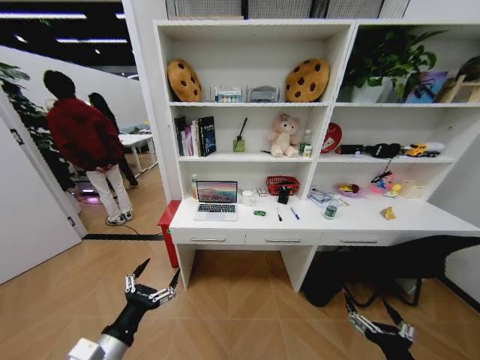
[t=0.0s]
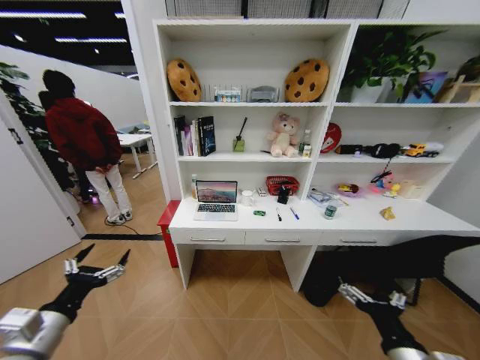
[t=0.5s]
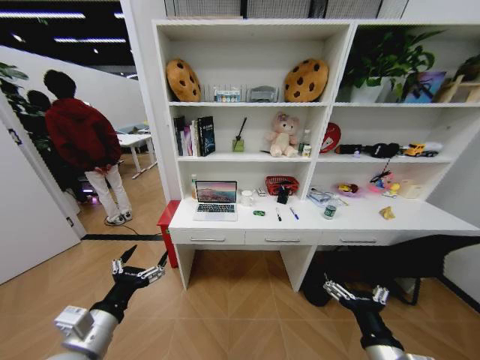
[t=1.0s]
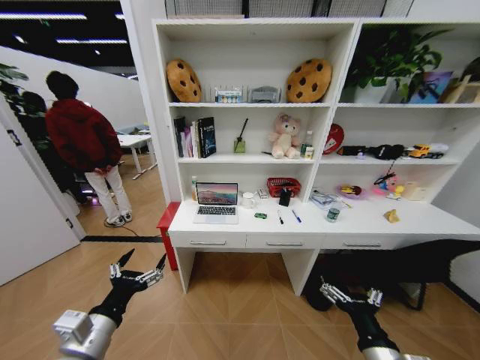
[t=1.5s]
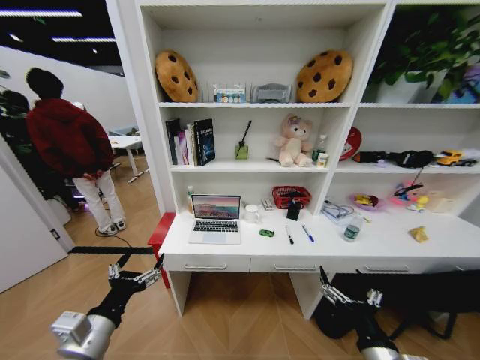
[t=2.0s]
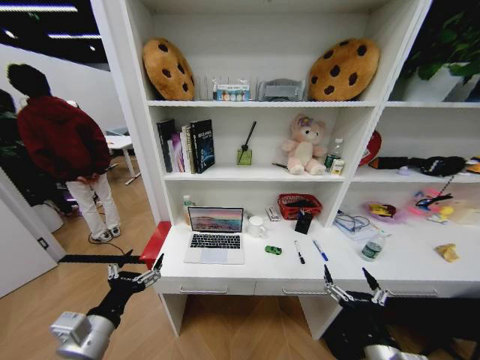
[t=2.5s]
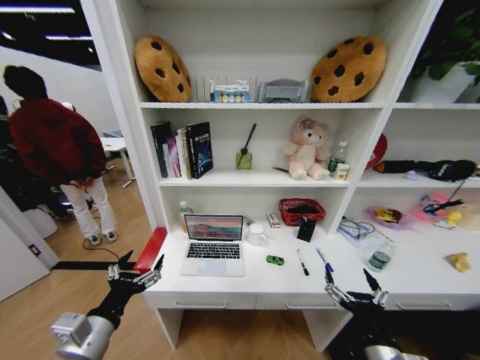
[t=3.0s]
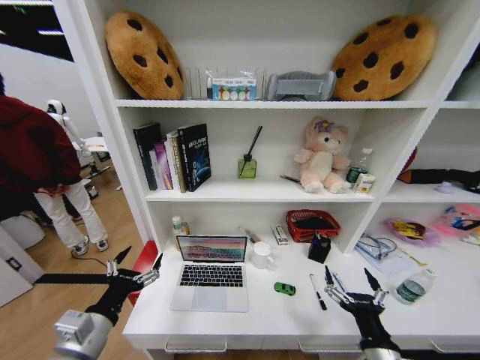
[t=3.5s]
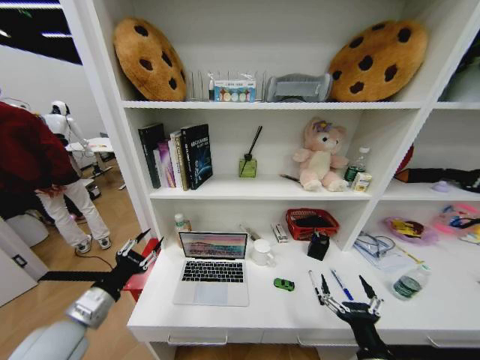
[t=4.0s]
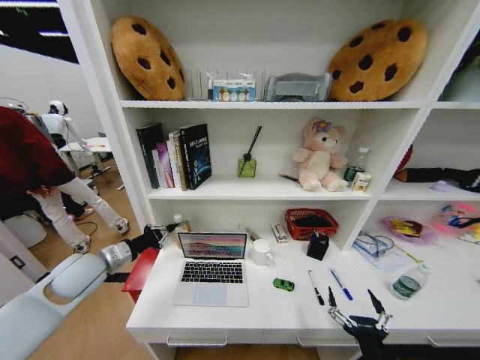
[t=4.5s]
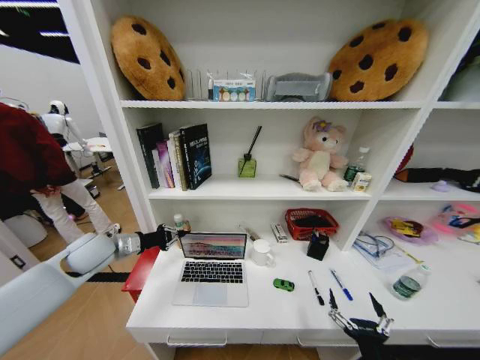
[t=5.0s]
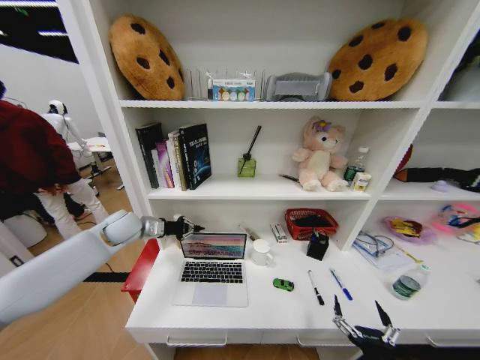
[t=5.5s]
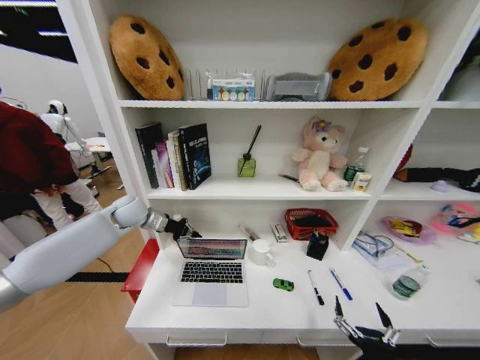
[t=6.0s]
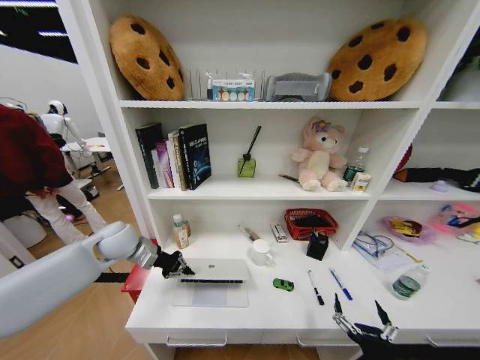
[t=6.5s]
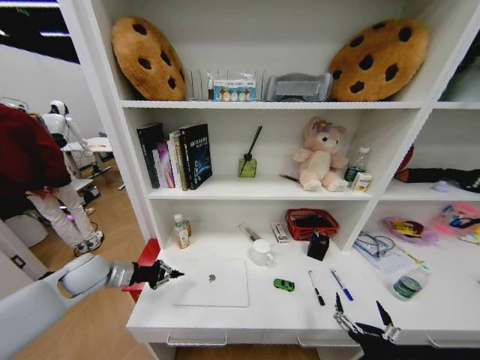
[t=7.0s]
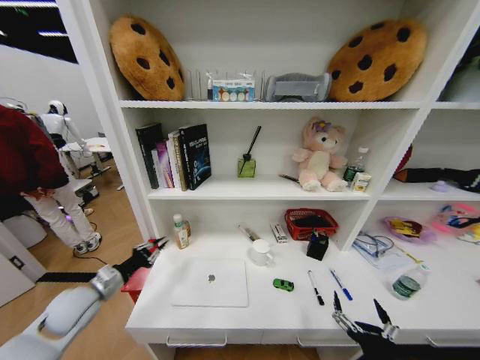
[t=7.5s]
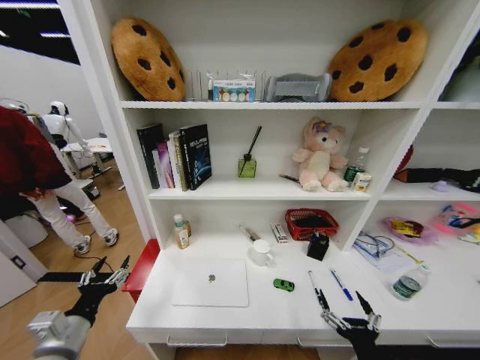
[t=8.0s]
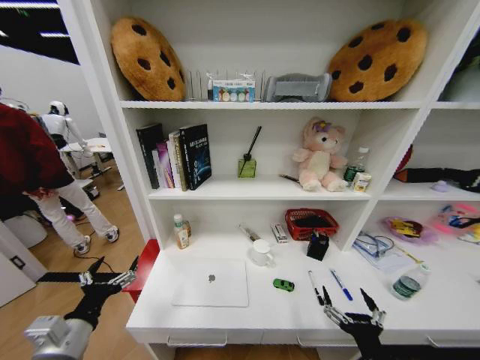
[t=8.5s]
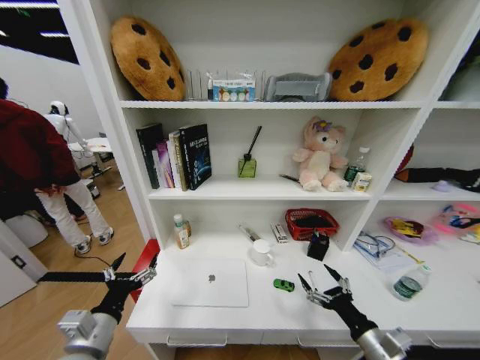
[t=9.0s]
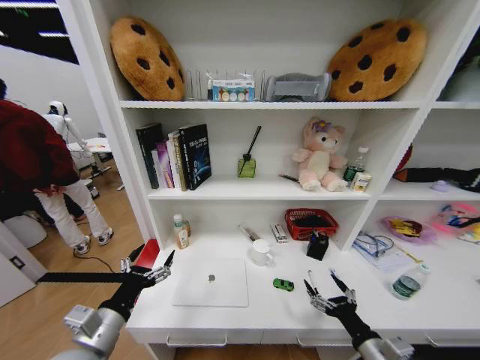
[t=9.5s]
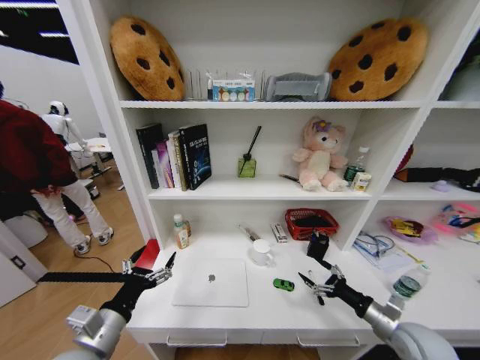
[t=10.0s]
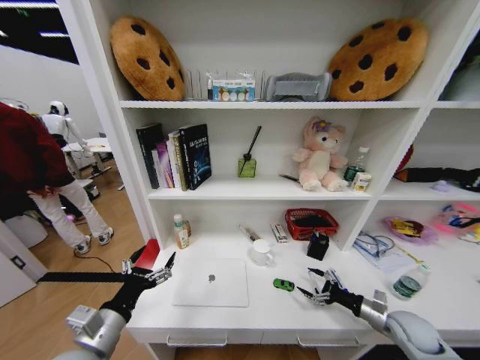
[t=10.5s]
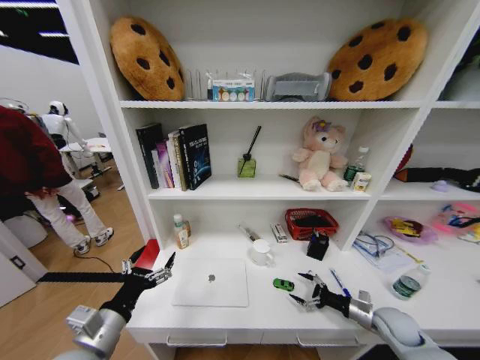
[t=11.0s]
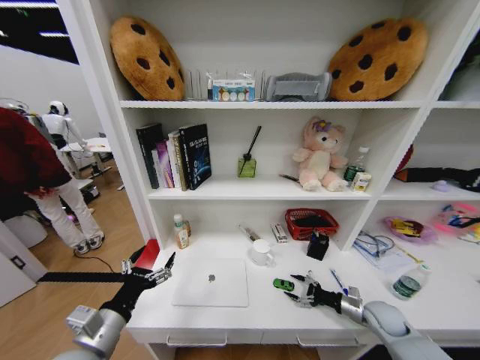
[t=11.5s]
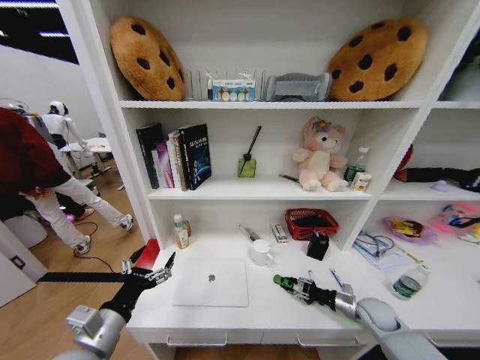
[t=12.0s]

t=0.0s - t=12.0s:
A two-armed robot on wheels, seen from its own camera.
Task of the whole recording: Organize the objects on the table.
t=2.0s - t=4.0s: The left gripper heads forward, covering some 5 cm, and closes up.
t=4.0s - t=6.0s: The right gripper is displaced downward by some 5 cm. Meanwhile the left gripper travels forward by approximately 30 cm, and closes.
t=6.0s - t=8.0s: The left gripper travels backward by roughly 35 cm, and opens its fingers.
t=8.0s - t=10.0s: The left gripper travels to the right by some 5 cm, while the right gripper heads forward and to the right, covering roughly 20 cm.
t=10.0s - t=12.0s: The right gripper heads forward and downward, covering roughly 15 cm, and closes up.

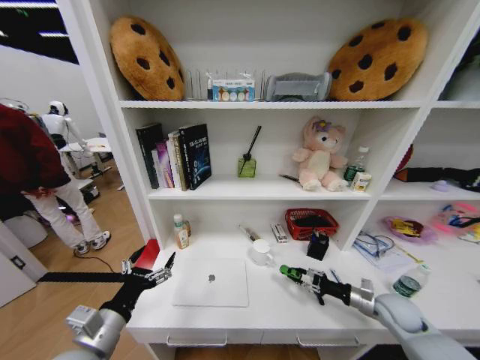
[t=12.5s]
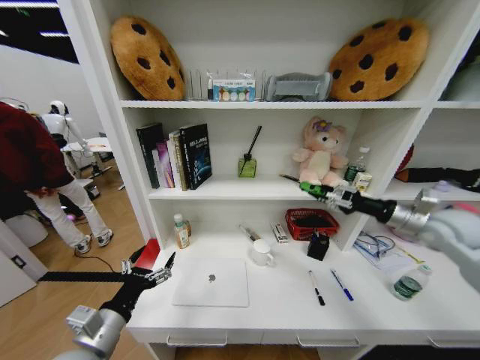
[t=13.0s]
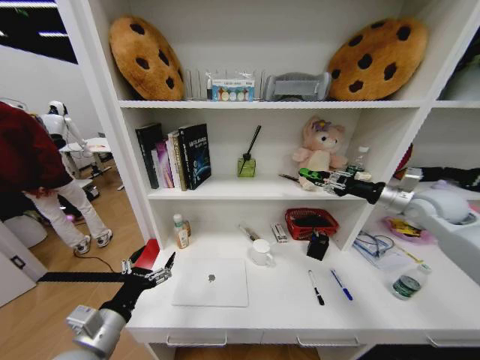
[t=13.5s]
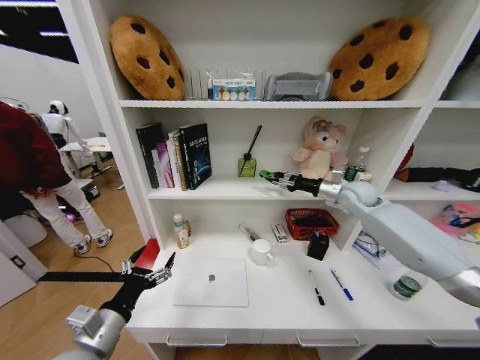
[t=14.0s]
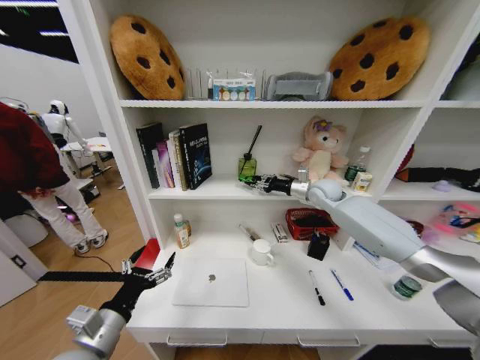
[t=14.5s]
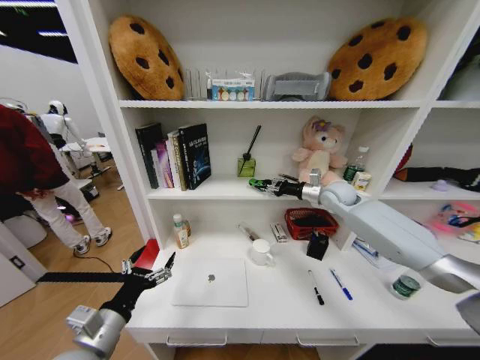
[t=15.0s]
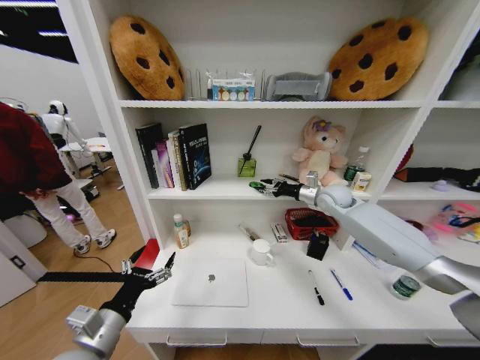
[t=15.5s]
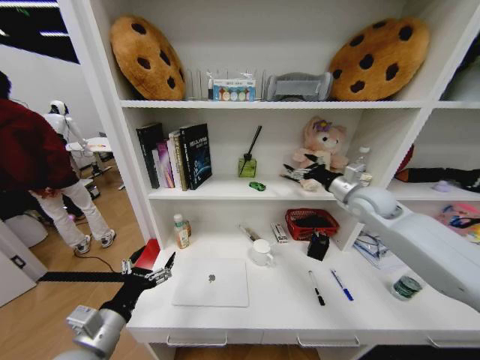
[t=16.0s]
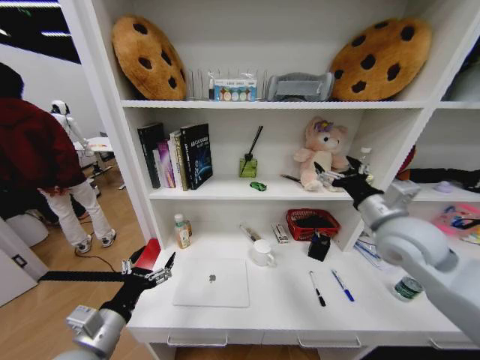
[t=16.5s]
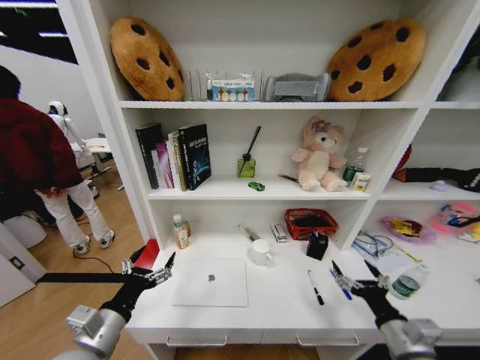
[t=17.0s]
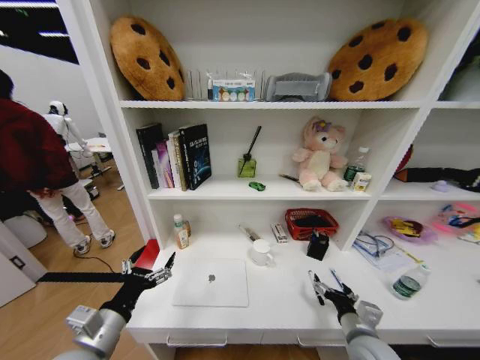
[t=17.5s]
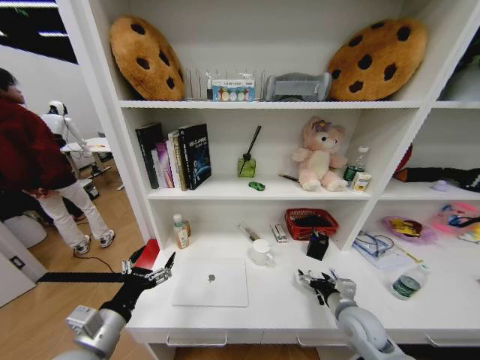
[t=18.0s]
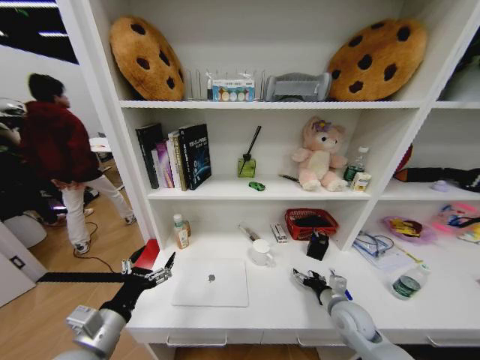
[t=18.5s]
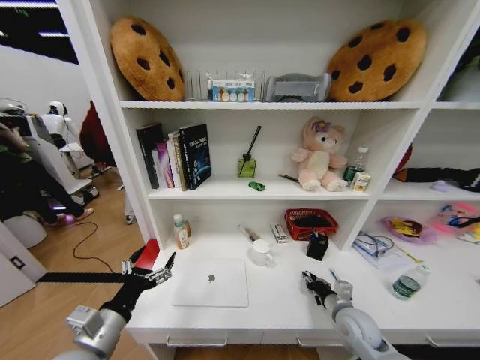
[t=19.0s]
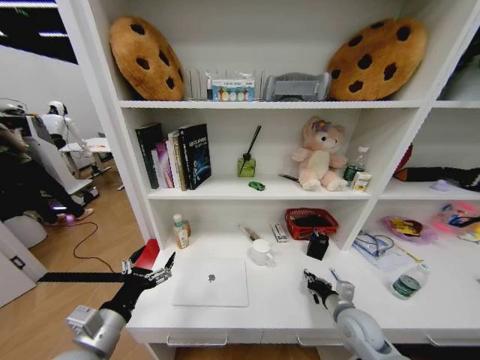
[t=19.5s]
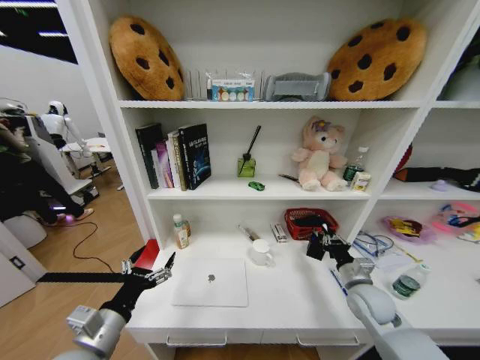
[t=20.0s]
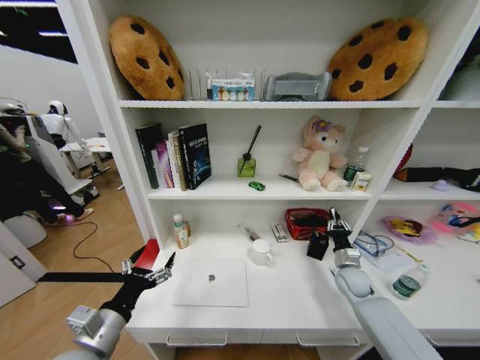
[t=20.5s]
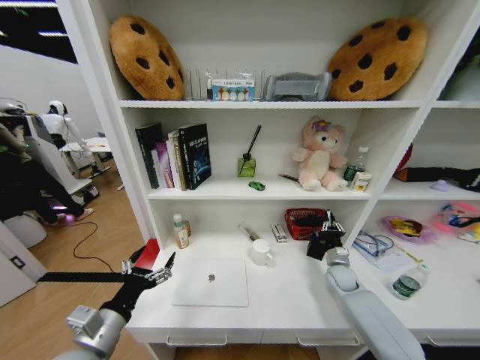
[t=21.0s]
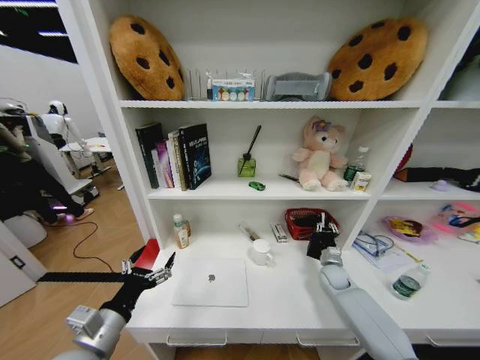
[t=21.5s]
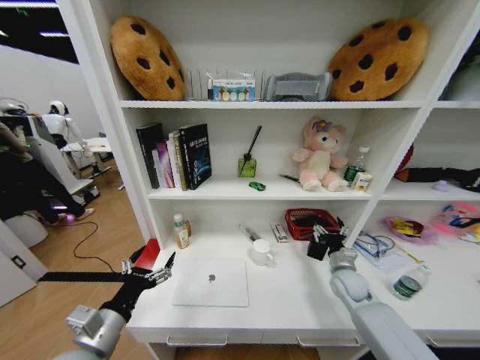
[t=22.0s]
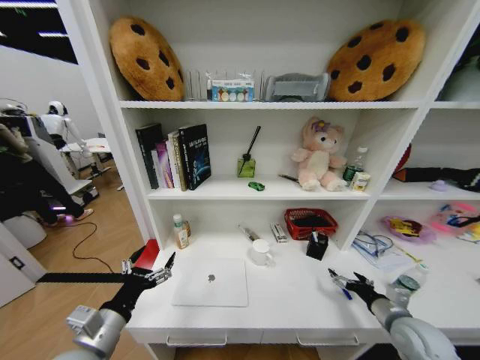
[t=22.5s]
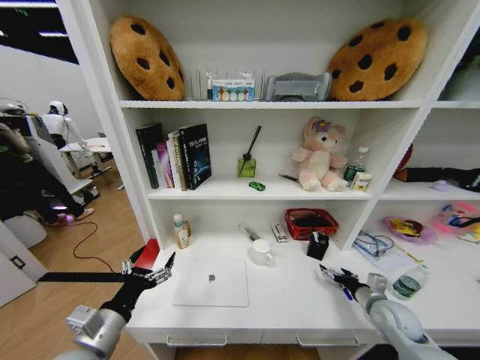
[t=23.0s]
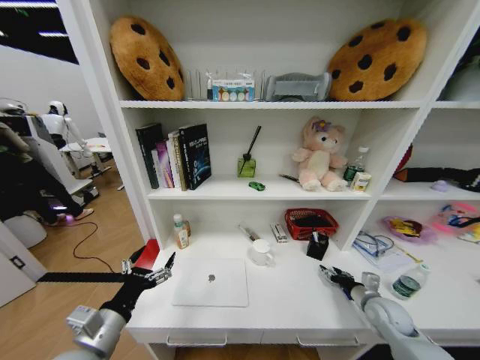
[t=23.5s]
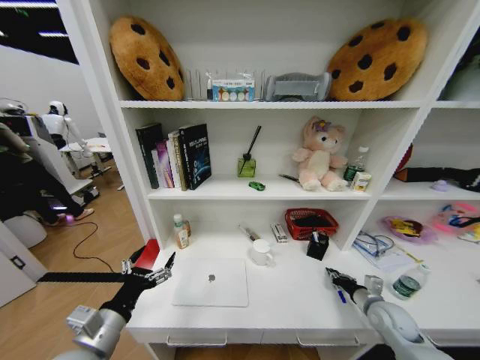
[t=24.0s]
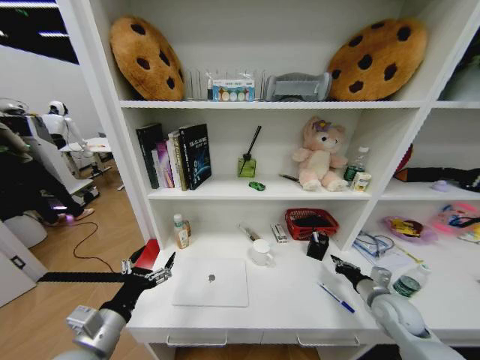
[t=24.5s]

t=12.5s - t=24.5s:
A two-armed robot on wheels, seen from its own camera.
Task of the whole recording: Organize the objects on the table.
t=12.5s - t=14.5s: The right gripper goes some 40 cm forward, upward and to the left.
t=14.5s - t=16.5s: The right gripper is displaced backward by about 25 cm, and opens.
t=16.5s - t=18.5s: The right gripper moves downward, roughly 30 cm.
t=18.5s - t=20.5s: The right gripper heads forward and to the right, covering some 15 cm, and closes.
t=20.5s - t=22.5s: The right gripper goes about 15 cm backward, and opens up.
t=22.5s - t=24.5s: The right gripper moves forward, some 5 cm, and closes up.

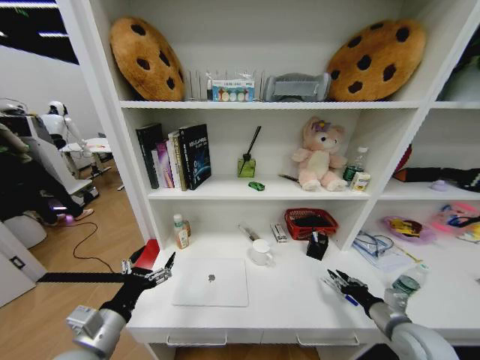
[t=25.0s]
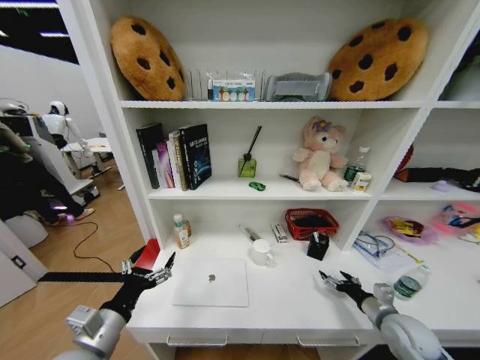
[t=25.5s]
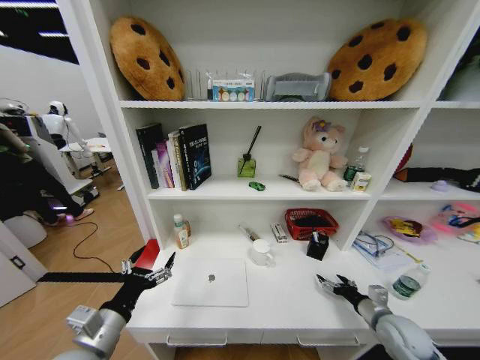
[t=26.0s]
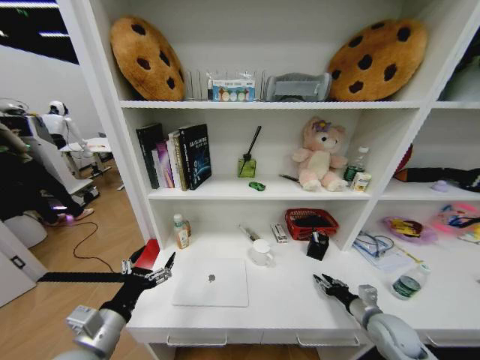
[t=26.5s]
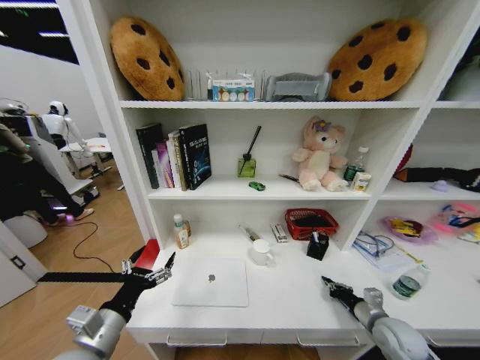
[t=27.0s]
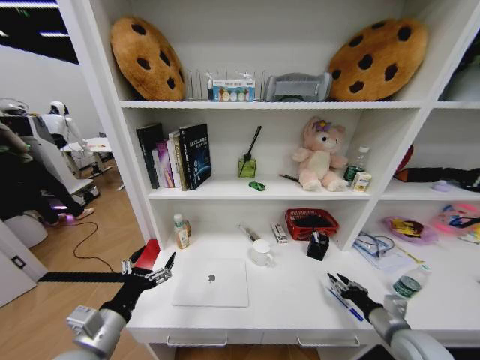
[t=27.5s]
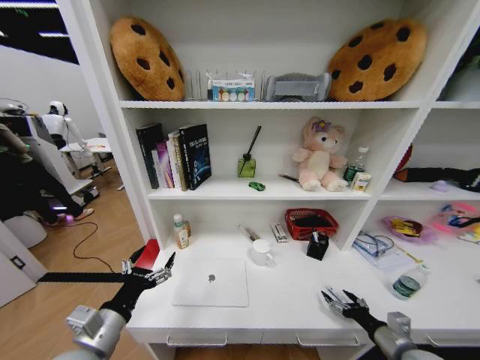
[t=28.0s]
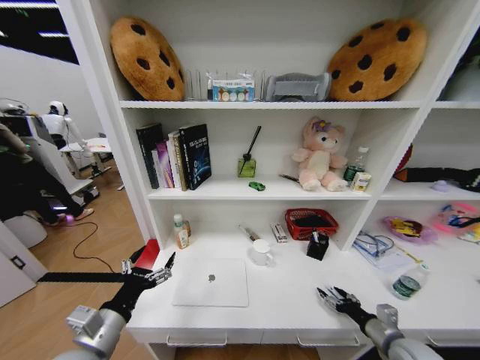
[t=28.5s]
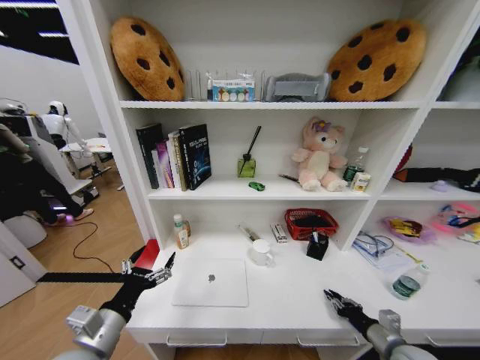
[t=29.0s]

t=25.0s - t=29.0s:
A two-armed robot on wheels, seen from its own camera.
Task of the whole recording: Organize the objects on the table.
t=25.0s - t=27.0s: The right gripper is displaced downward by roughly 5 cm, and opens, then closes again.
t=27.0s - t=29.0s: The right gripper shifts roughly 5 cm backward, and opens, then closes again.
